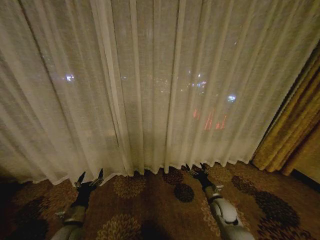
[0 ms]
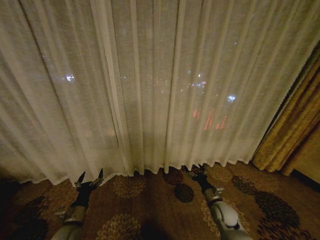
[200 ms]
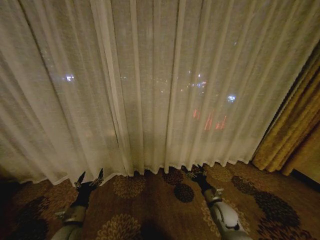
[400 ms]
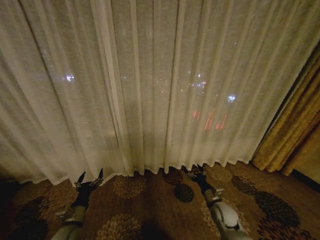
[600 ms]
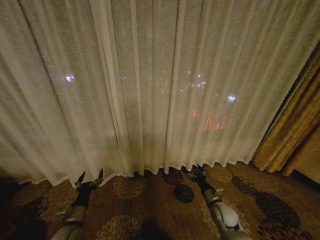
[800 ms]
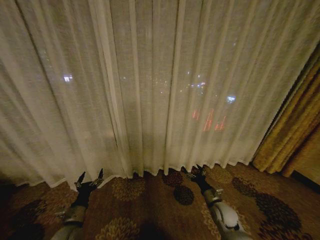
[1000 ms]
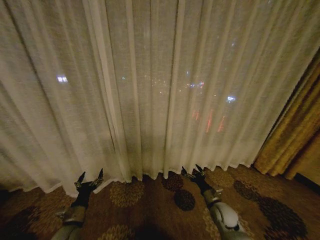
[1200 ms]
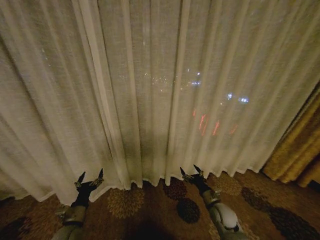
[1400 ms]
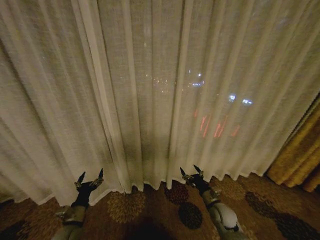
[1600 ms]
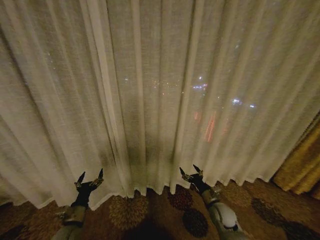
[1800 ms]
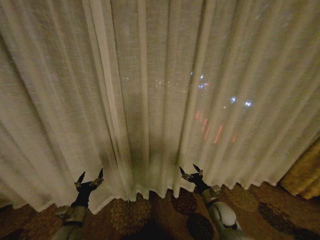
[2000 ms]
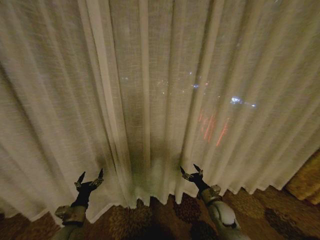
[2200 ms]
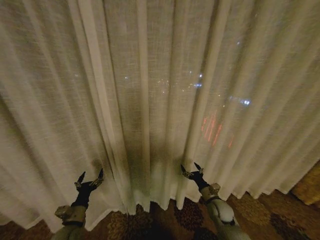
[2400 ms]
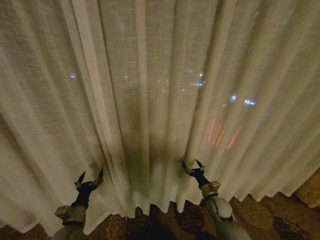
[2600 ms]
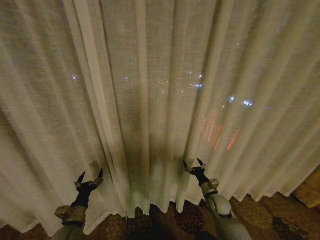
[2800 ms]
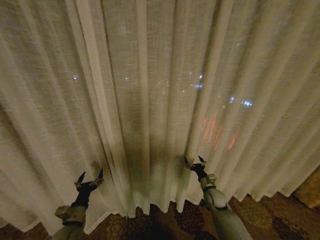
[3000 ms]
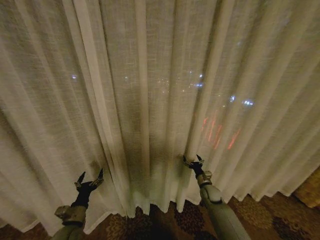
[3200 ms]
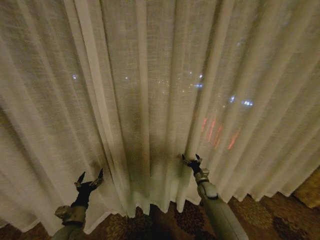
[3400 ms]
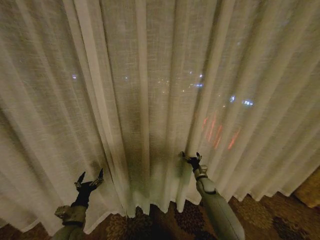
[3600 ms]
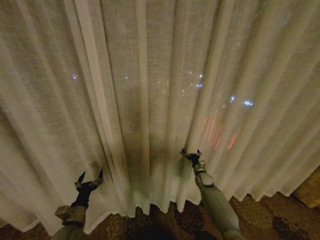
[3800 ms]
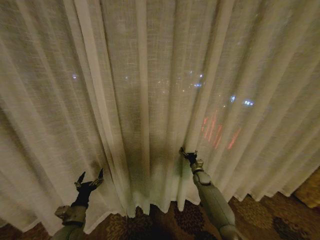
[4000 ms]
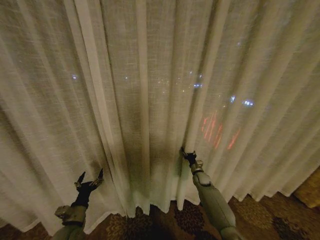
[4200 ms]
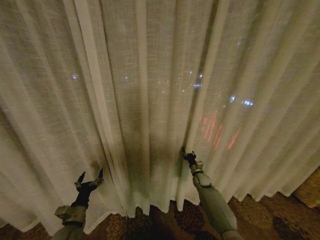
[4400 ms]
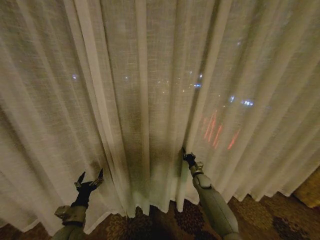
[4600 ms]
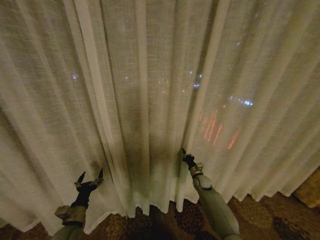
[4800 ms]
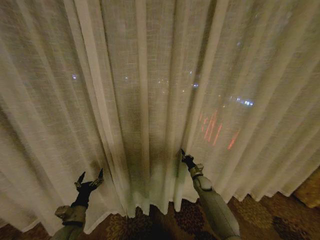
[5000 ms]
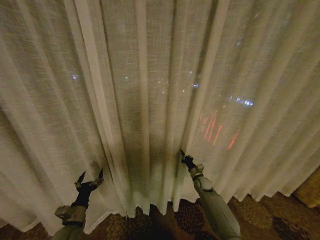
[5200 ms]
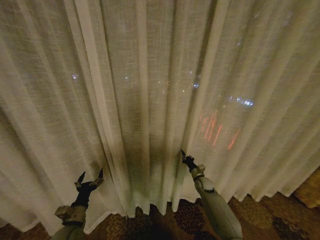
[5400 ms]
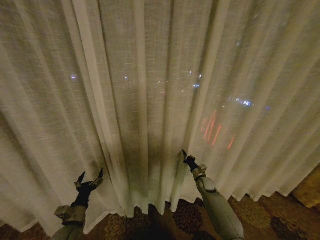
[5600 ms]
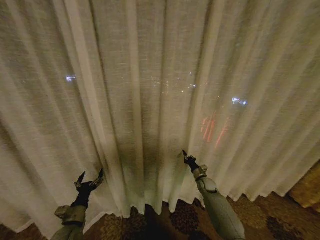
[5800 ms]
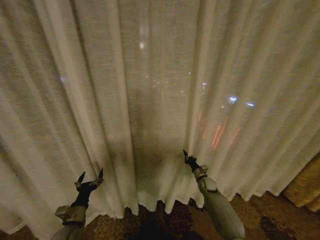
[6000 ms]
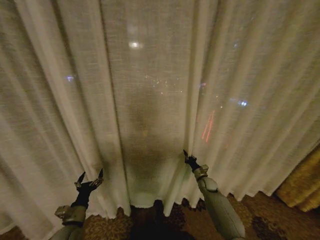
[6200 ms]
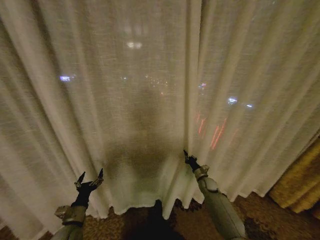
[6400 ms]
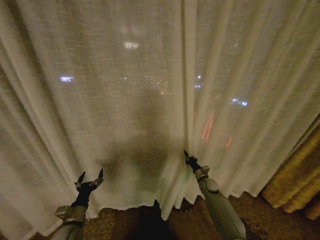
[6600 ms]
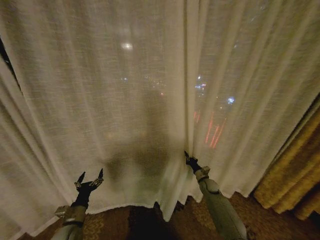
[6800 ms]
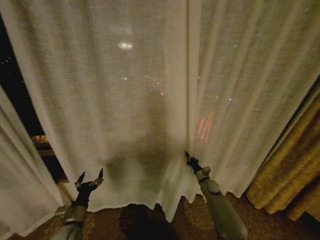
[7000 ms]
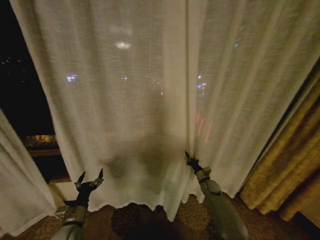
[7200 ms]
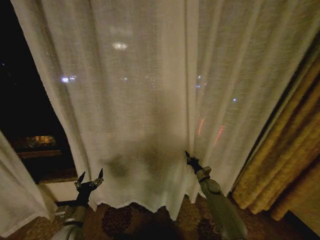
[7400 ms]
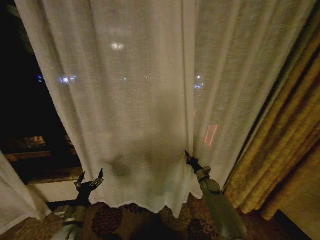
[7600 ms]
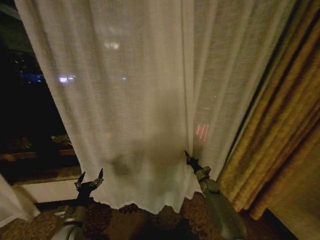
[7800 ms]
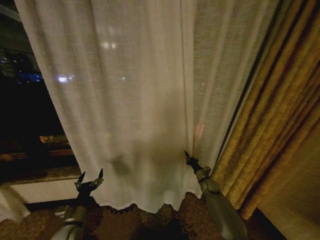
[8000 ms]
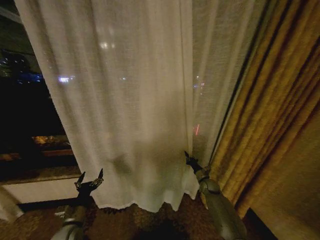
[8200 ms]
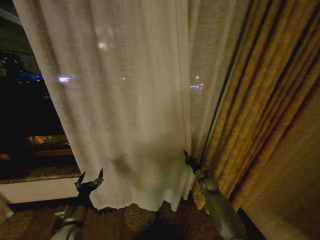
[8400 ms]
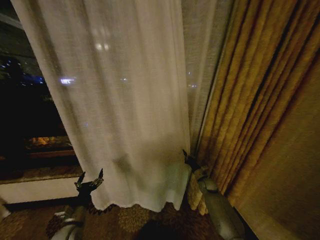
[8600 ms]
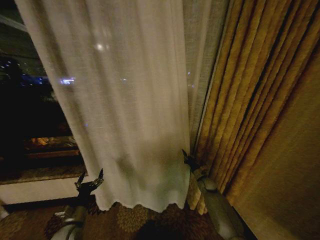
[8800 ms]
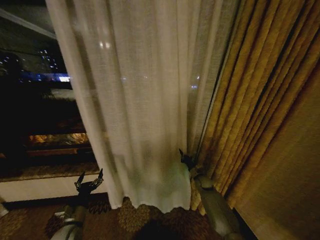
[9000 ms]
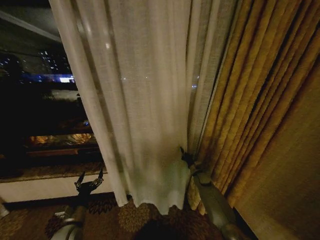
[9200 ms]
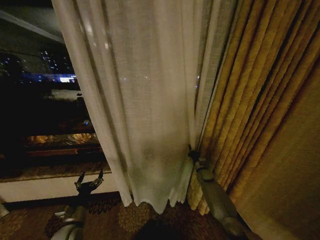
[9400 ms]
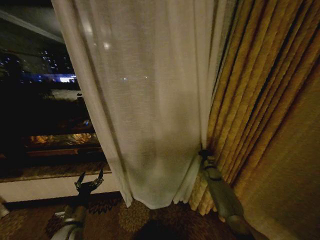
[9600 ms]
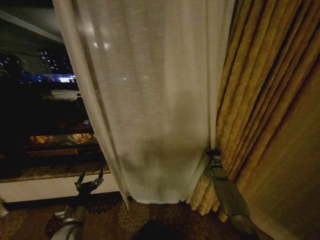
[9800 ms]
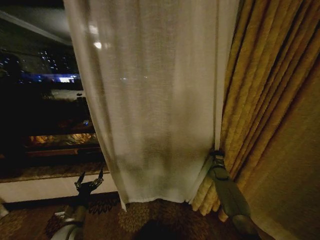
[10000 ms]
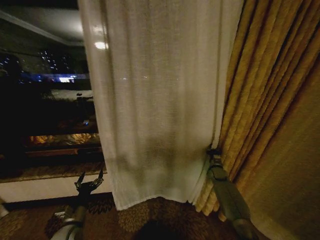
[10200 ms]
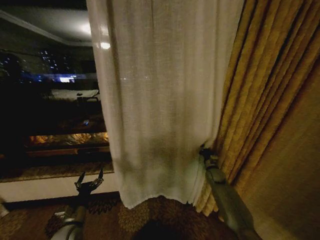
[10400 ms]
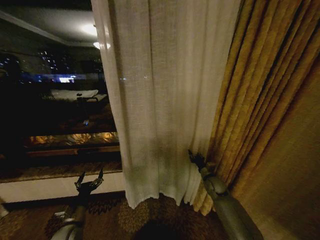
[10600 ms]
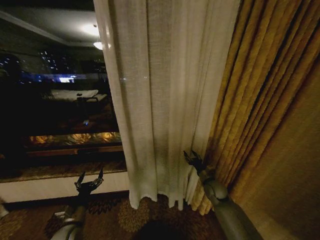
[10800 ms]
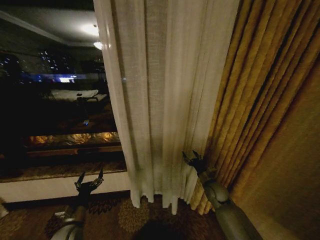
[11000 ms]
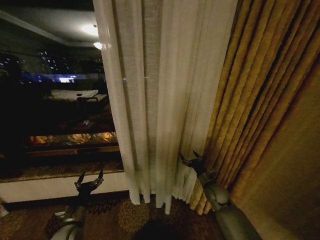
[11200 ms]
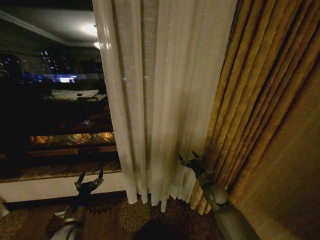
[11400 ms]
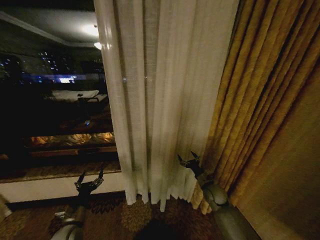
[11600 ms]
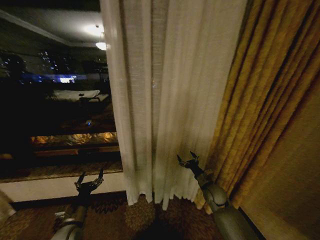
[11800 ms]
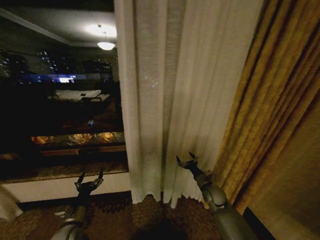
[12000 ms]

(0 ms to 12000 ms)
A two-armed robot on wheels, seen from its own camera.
Task of the whole recording: Open the curtains by pulling them apart, changing their state from closed to fully open.
1600 ms - 3000 ms: The right gripper is displaced forward by roughly 10 cm.
3000 ms - 4400 ms: The right gripper is displaced forward by about 10 cm, and closes up.
4400 ms - 6000 ms: The right gripper closes its fingers.
9000 ms - 10400 ms: The right gripper shifts some 5 cm upward.
10400 ms - 12000 ms: The right gripper is displaced backward and to the left by some 10 cm, and opens up.

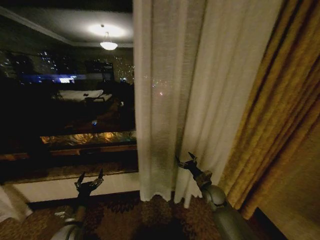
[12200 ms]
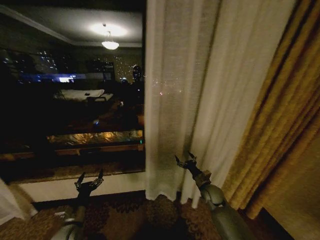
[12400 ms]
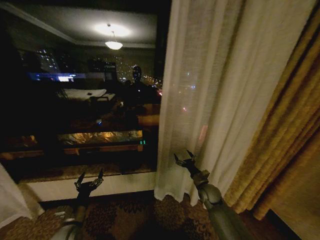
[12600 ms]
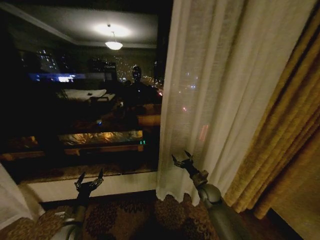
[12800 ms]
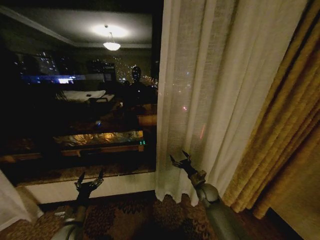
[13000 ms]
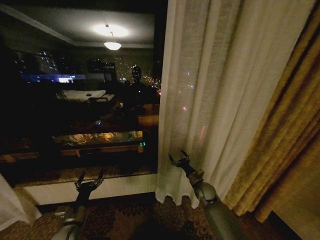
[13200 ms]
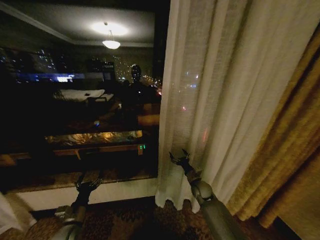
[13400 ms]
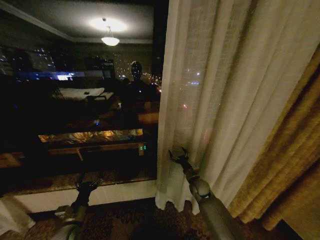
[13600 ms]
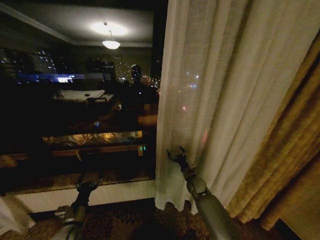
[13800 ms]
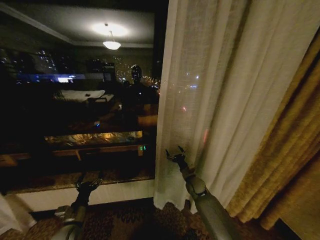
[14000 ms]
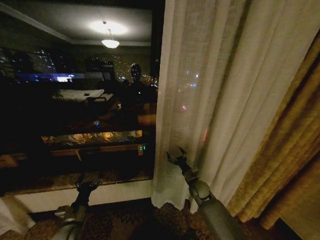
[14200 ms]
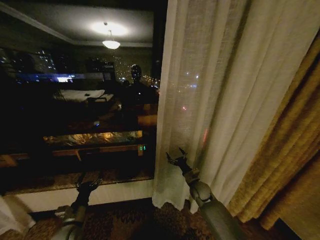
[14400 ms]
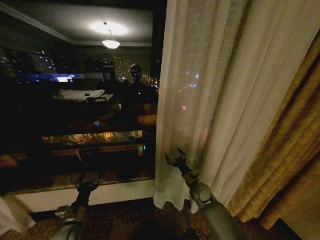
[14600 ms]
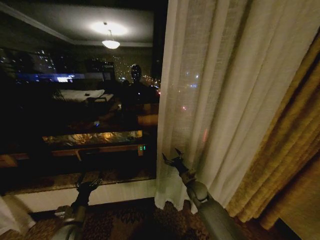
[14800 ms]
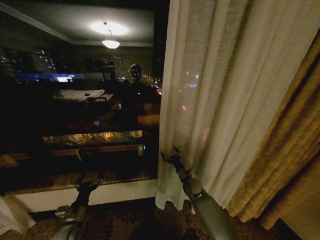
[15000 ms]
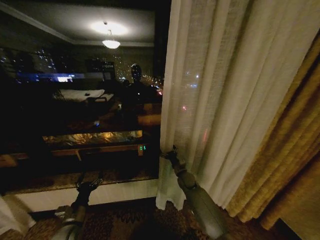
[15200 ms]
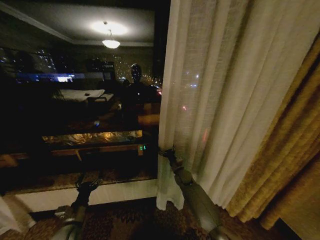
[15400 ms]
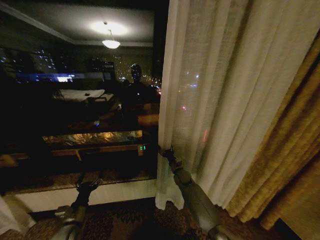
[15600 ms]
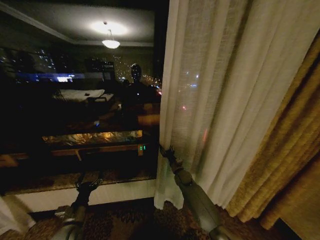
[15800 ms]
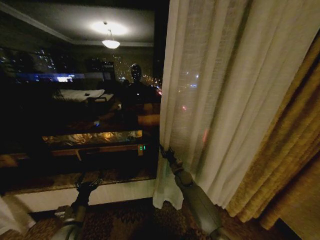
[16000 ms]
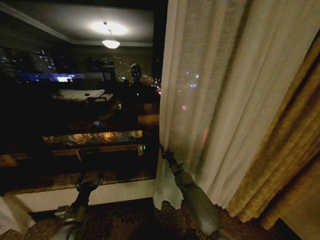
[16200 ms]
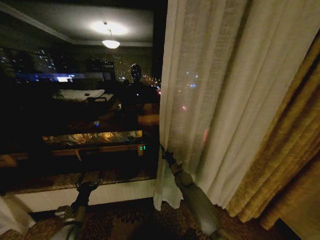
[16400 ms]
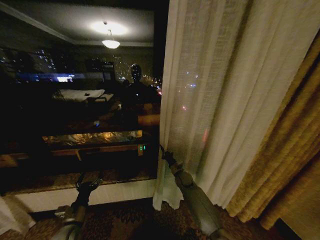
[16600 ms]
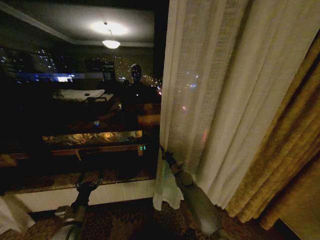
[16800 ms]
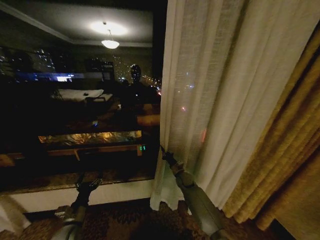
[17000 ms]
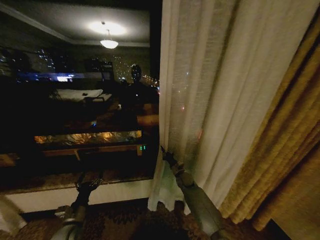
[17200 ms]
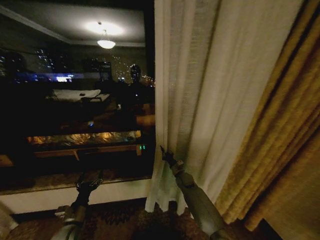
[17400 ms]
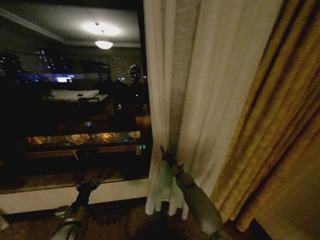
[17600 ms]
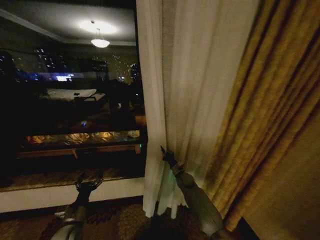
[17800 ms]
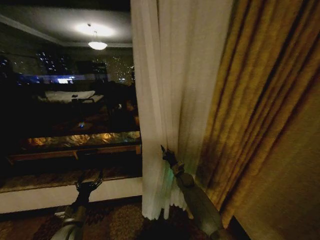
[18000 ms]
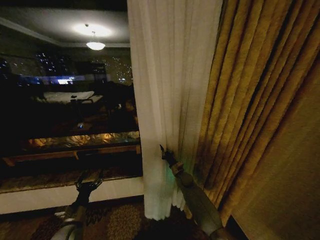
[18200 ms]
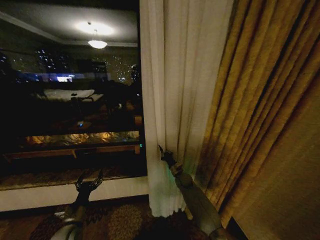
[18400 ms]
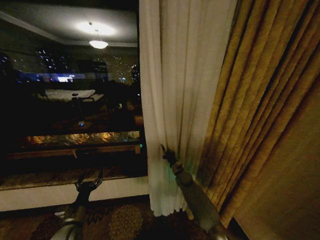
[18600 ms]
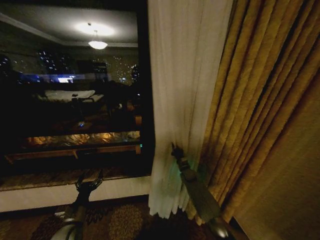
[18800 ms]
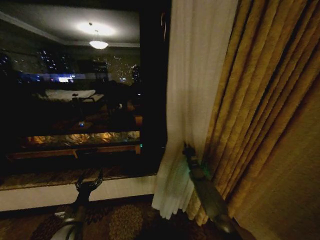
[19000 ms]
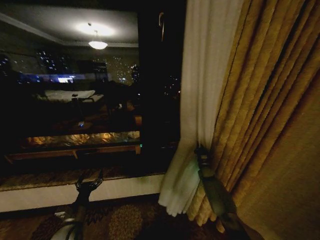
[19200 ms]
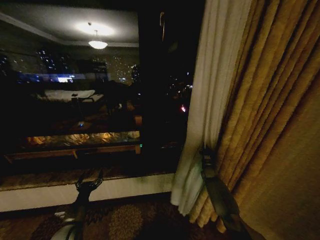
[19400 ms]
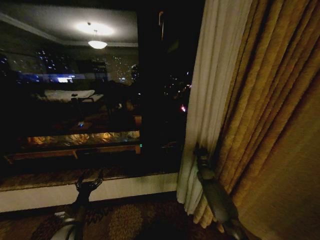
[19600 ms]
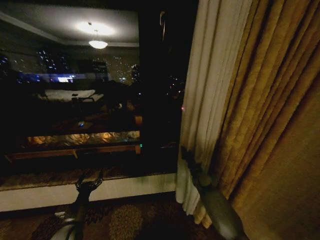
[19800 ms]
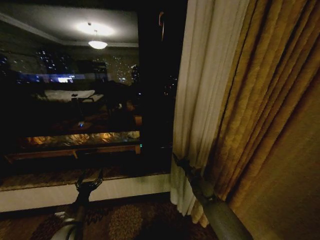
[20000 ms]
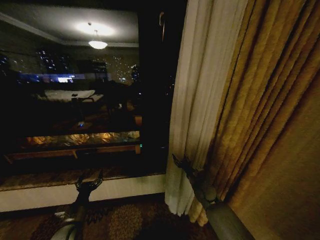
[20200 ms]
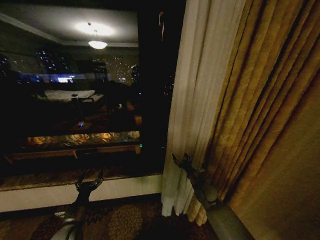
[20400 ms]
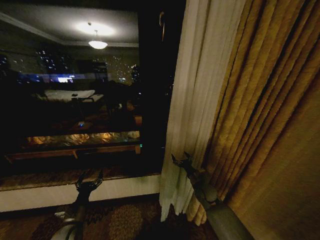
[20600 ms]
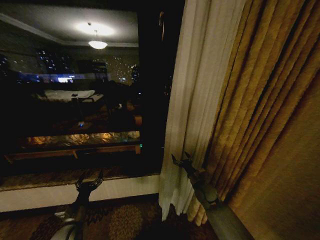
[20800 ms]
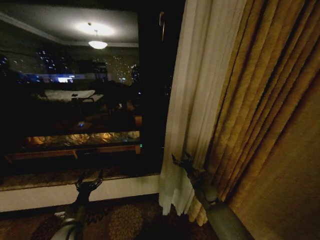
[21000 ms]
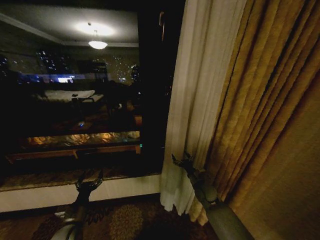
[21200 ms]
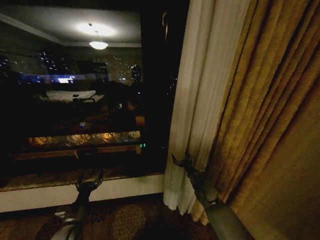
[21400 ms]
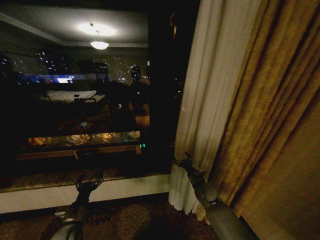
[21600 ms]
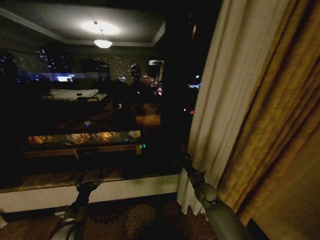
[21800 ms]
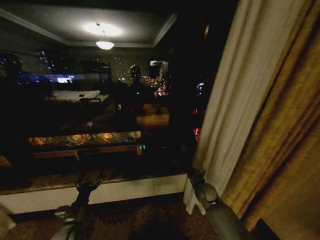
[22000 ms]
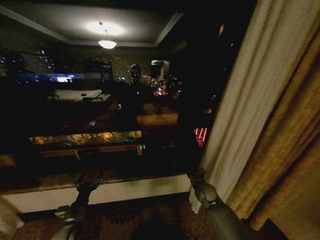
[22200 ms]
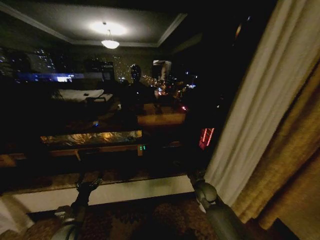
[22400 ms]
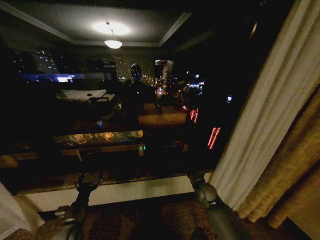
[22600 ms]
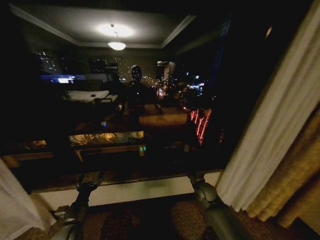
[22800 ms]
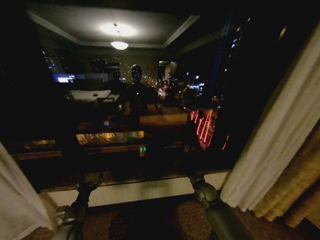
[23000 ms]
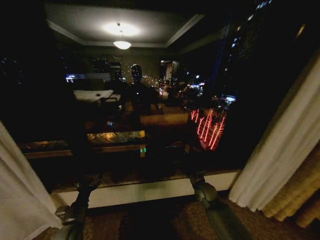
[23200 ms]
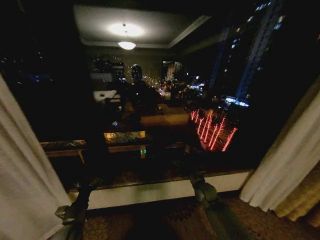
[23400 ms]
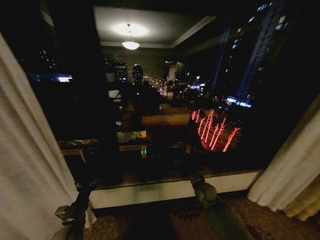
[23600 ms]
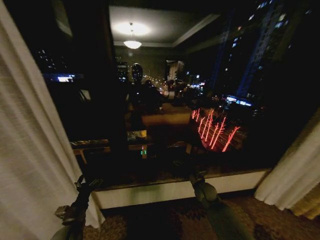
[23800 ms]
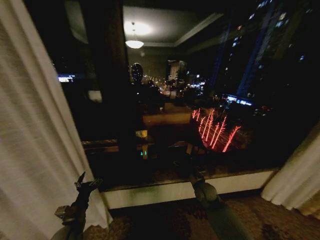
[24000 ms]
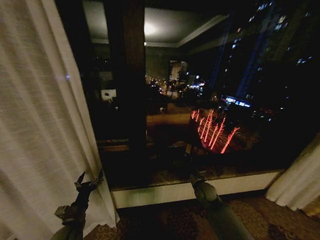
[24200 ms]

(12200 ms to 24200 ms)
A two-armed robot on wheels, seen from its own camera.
Task of the whole recording: Open the curtains by pulling them apart, changing their state from closed to fully open.
12200 ms - 13800 ms: The right gripper is displaced forward and to the left by approximately 10 cm.
13800 ms - 15200 ms: The right gripper ends up about 5 cm from where it was.
15200 ms - 16600 ms: The right gripper closes.
18200 ms - 19800 ms: The right gripper travels to the right by some 10 cm.
19800 ms - 21200 ms: The right gripper heads backward, covering about 10 cm, and opens its fingers.
